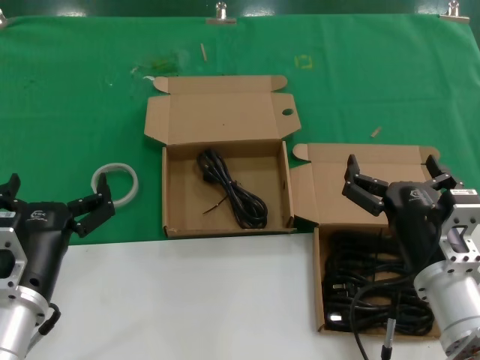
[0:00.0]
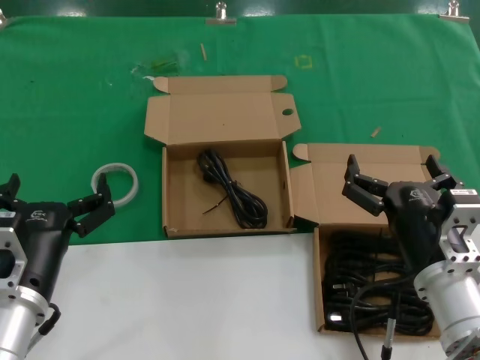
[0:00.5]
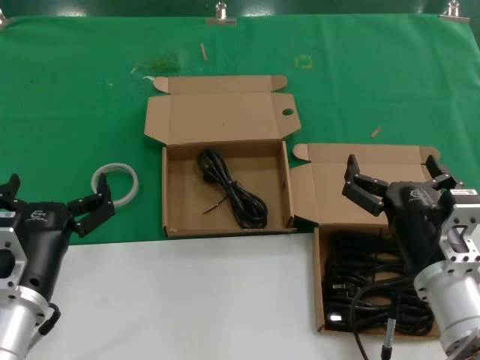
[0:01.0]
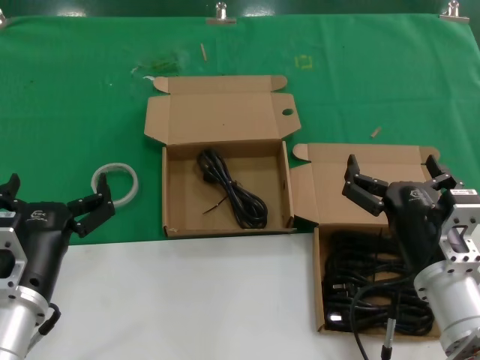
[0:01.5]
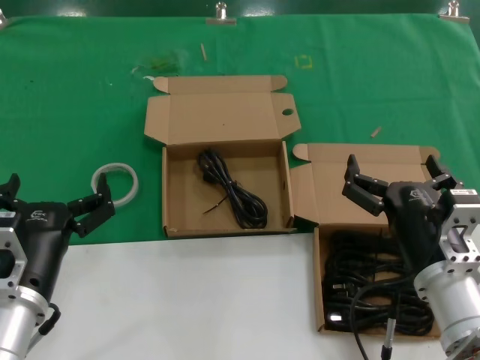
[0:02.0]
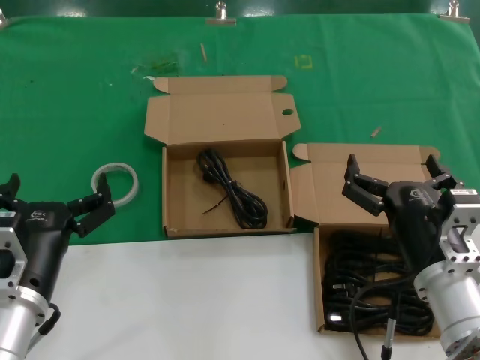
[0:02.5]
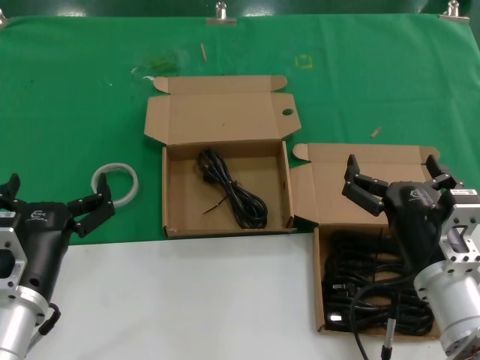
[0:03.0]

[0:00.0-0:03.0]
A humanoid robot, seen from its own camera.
Task of the whole recording: take the parts from the box containing them and put them into an empty box.
0:00.0 to 0:03.0: Neither hand changes place.
